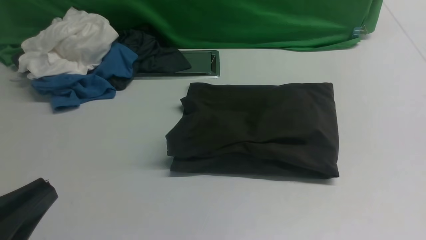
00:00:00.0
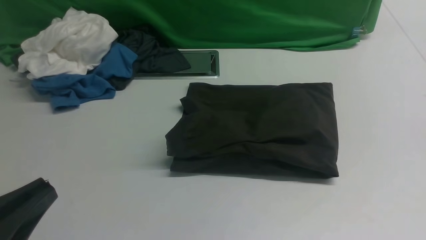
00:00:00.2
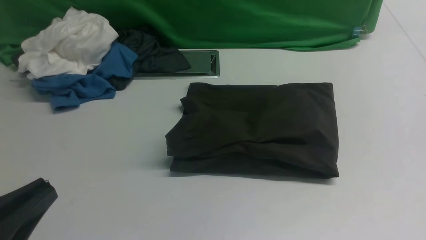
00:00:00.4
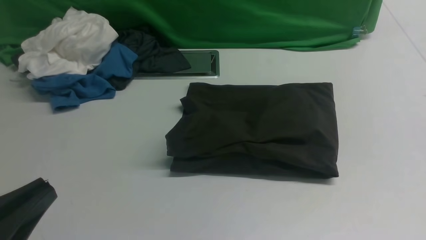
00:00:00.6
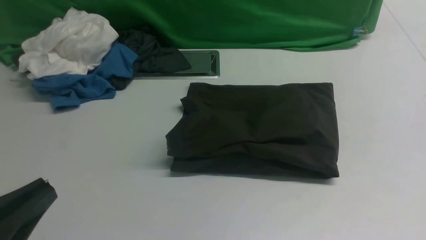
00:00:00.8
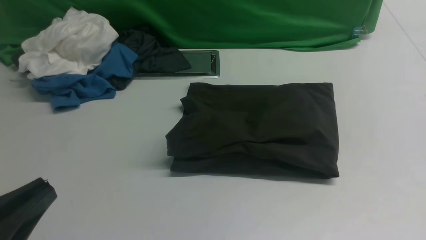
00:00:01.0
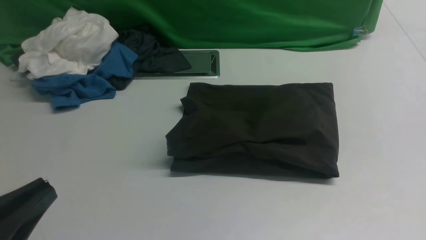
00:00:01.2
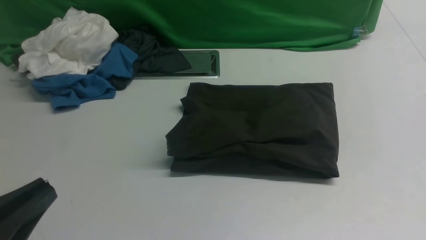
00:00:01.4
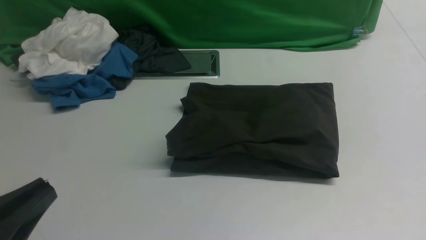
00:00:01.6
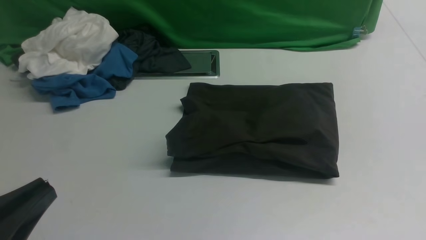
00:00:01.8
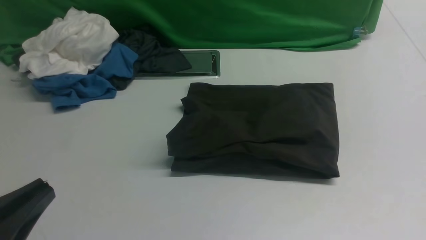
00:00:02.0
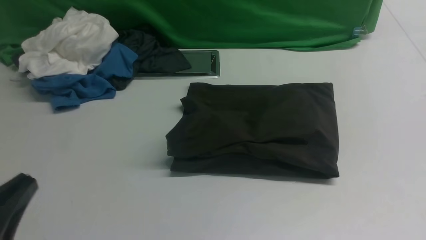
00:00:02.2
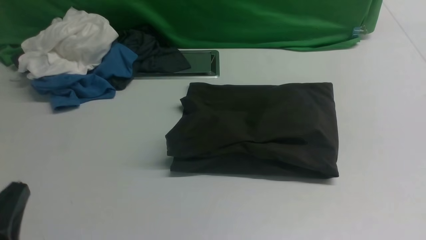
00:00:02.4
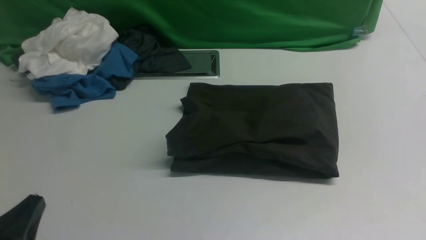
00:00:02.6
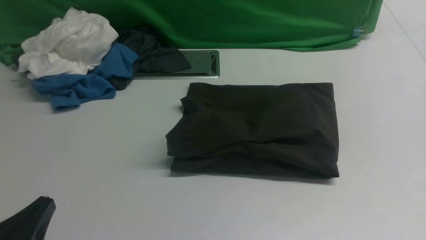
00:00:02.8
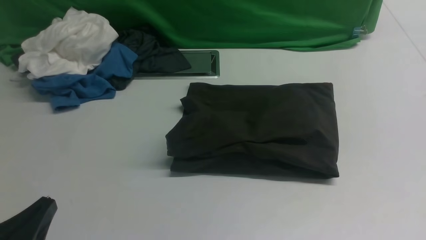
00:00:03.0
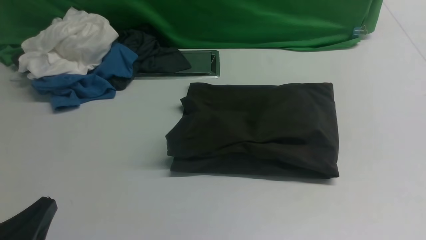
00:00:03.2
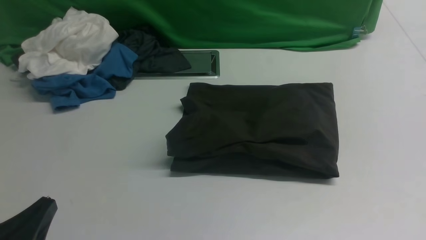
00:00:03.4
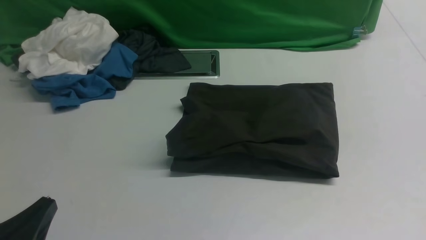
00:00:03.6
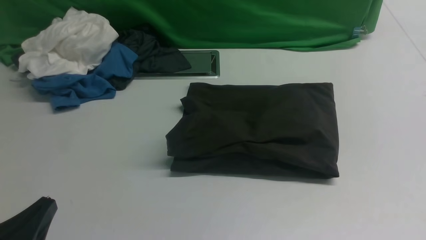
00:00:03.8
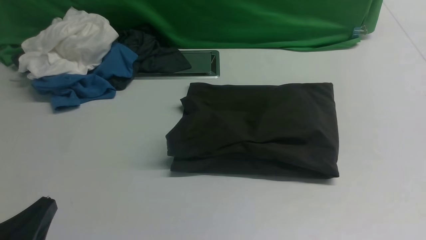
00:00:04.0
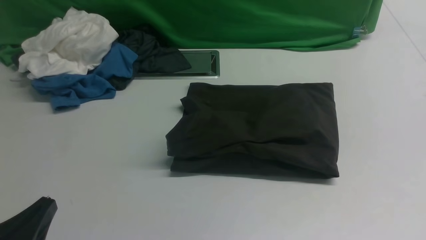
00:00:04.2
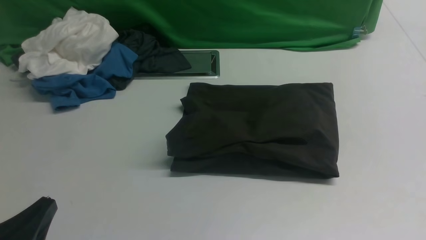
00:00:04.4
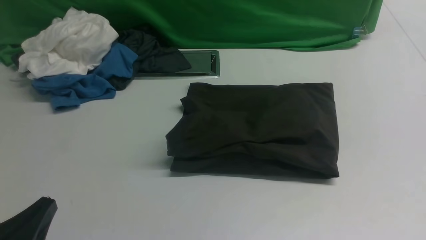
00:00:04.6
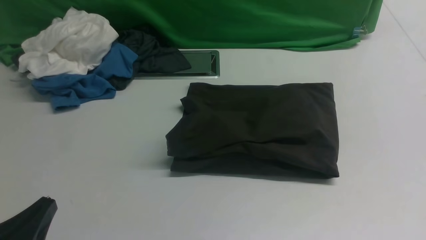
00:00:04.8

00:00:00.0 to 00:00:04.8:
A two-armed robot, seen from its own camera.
00:00:01.6 to 00:00:03.2: The left gripper is displaced downward by approximately 10 cm.
00:00:03.2 to 00:00:04.8: Neither gripper changes place.

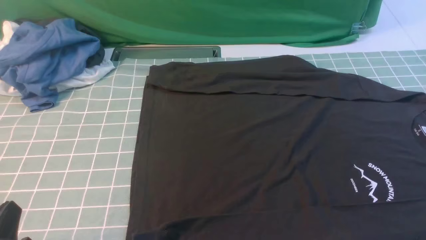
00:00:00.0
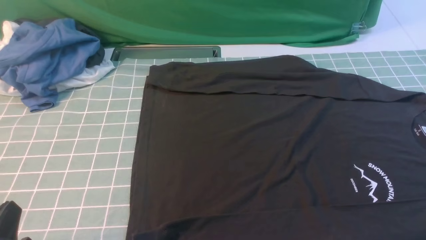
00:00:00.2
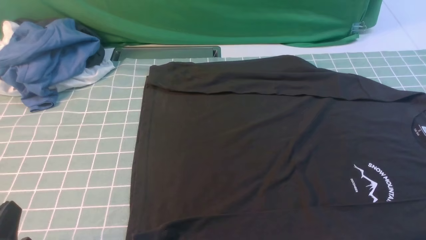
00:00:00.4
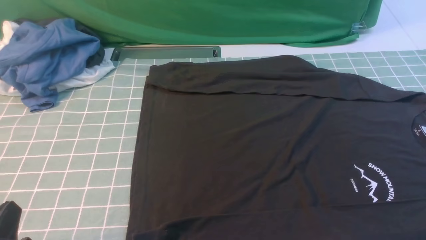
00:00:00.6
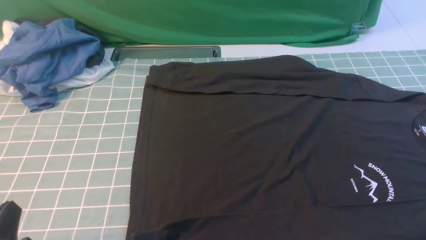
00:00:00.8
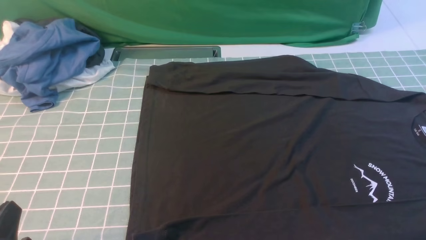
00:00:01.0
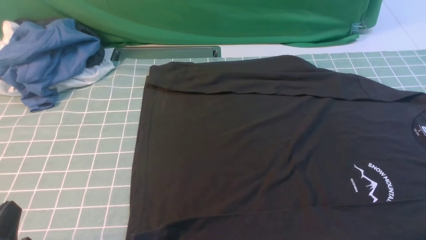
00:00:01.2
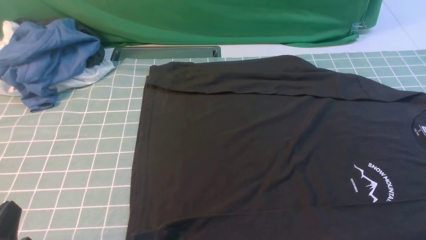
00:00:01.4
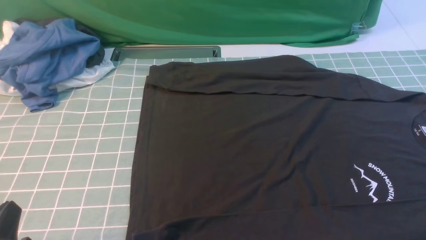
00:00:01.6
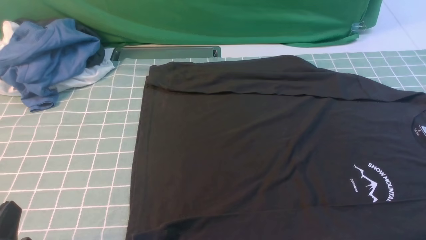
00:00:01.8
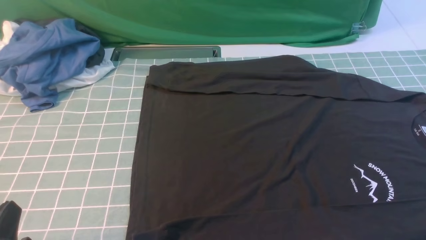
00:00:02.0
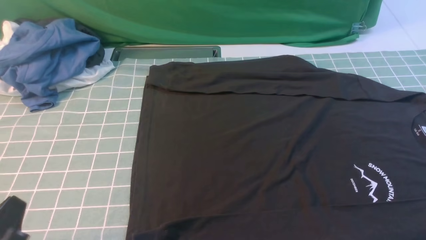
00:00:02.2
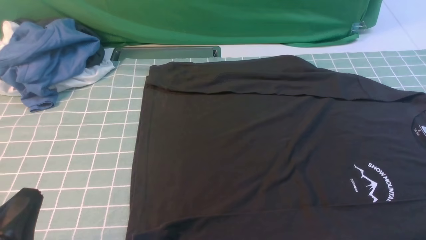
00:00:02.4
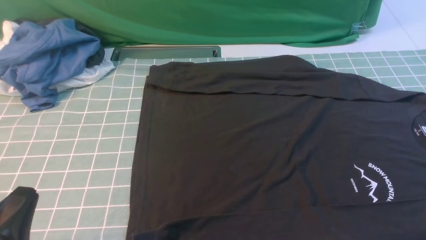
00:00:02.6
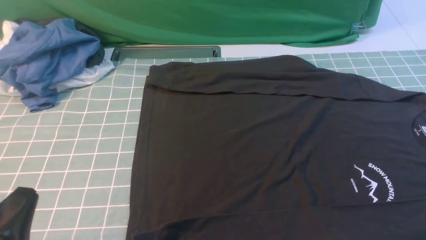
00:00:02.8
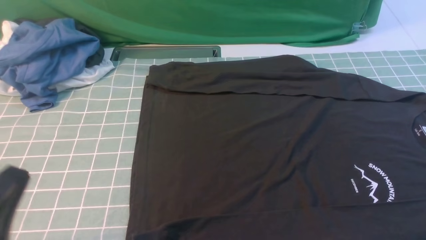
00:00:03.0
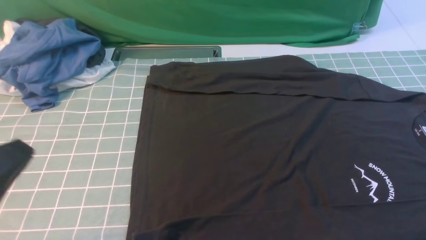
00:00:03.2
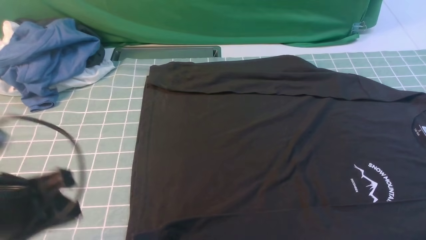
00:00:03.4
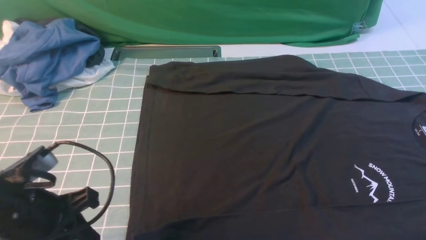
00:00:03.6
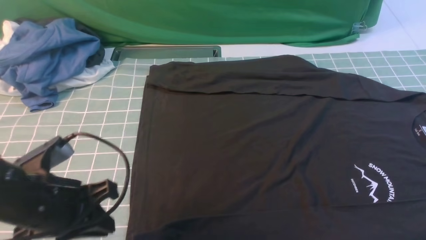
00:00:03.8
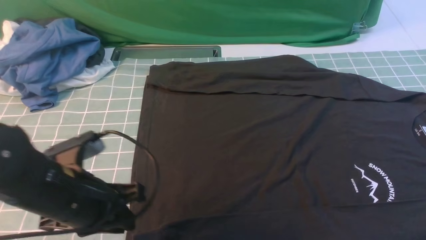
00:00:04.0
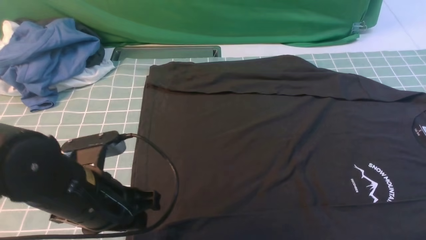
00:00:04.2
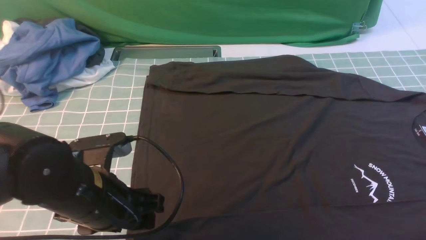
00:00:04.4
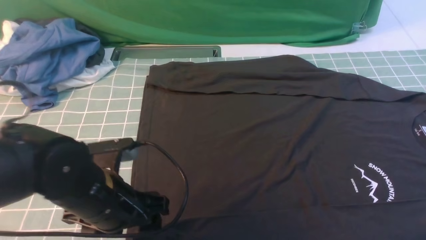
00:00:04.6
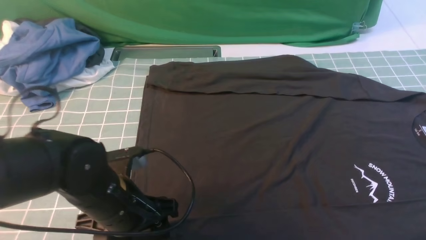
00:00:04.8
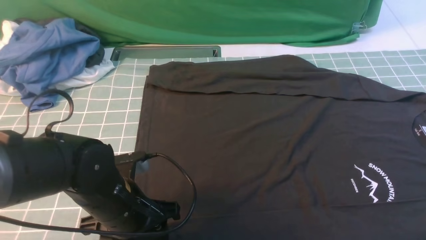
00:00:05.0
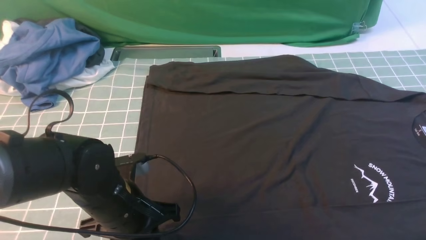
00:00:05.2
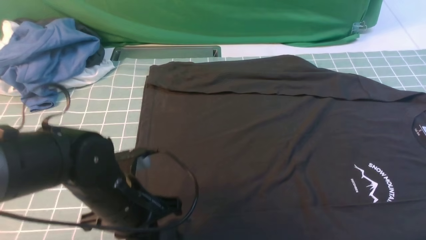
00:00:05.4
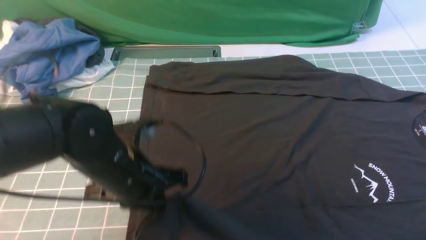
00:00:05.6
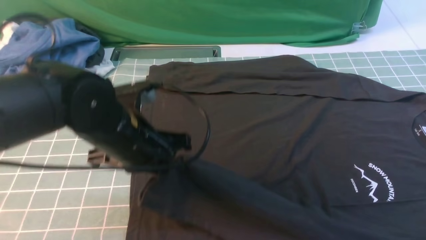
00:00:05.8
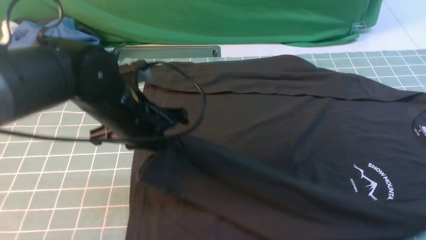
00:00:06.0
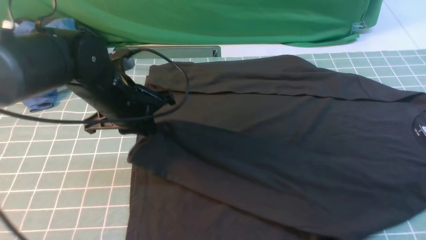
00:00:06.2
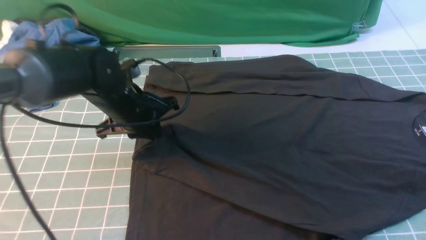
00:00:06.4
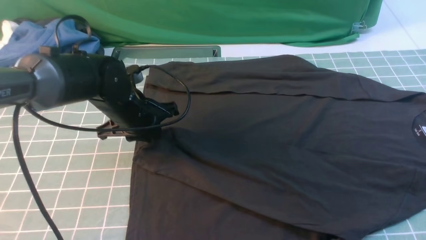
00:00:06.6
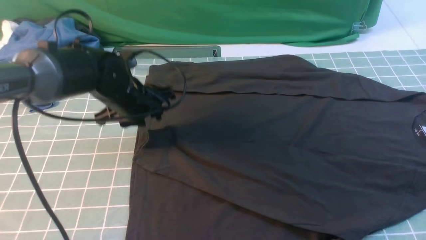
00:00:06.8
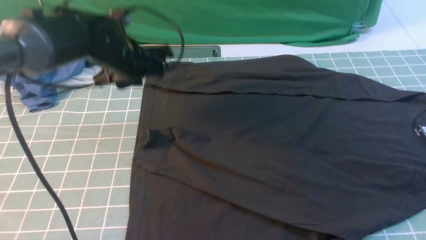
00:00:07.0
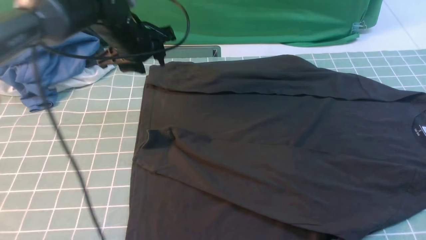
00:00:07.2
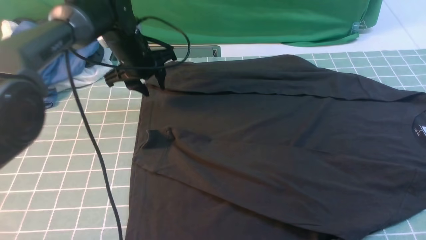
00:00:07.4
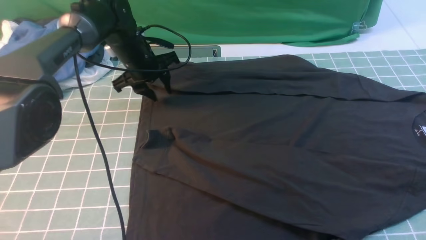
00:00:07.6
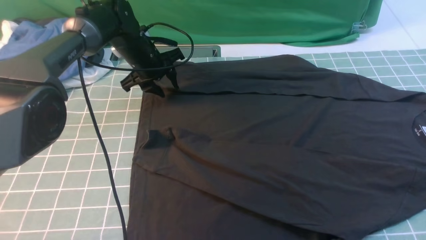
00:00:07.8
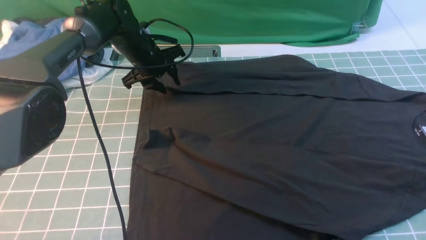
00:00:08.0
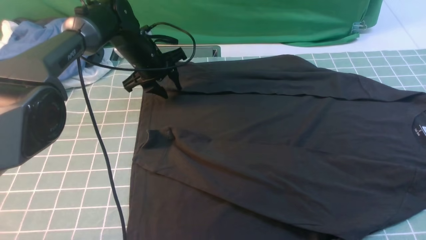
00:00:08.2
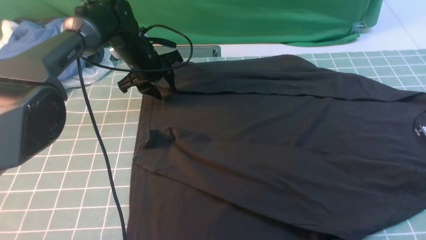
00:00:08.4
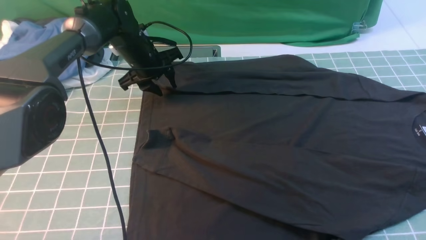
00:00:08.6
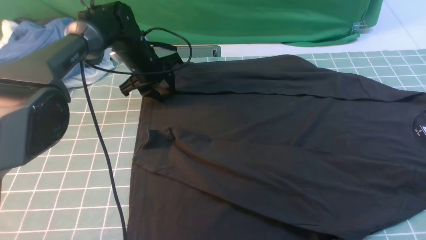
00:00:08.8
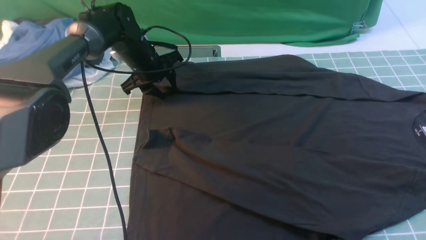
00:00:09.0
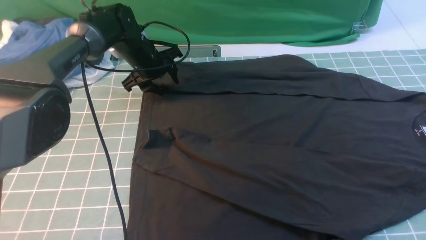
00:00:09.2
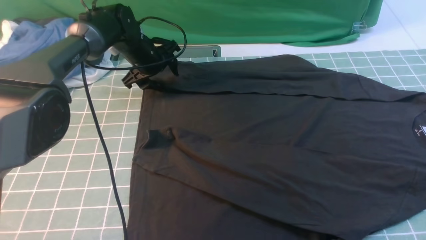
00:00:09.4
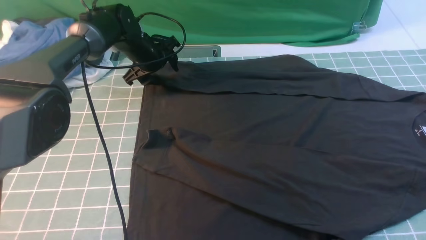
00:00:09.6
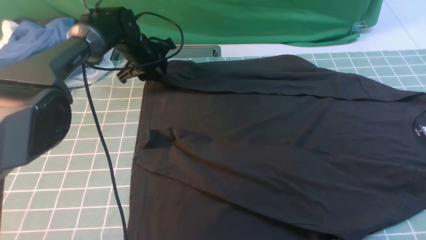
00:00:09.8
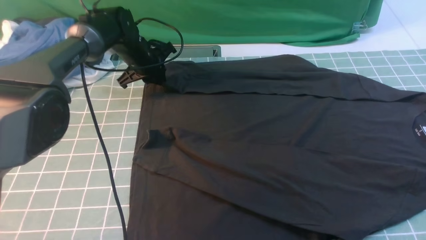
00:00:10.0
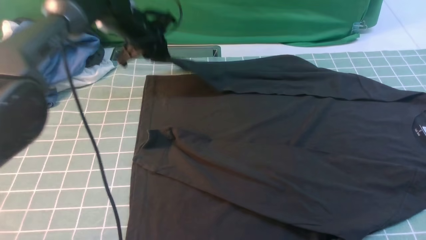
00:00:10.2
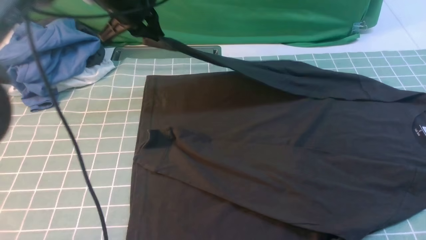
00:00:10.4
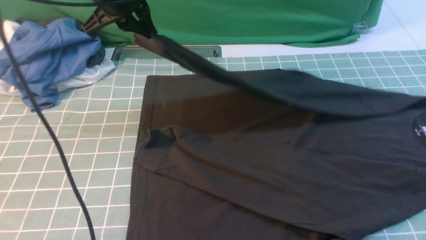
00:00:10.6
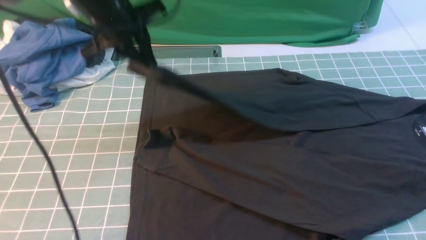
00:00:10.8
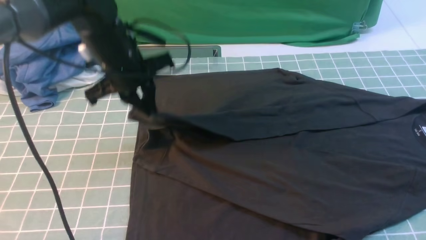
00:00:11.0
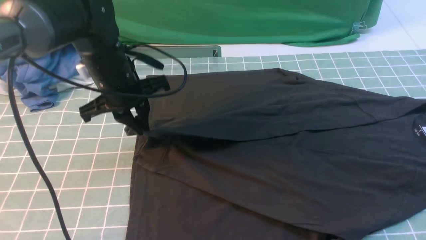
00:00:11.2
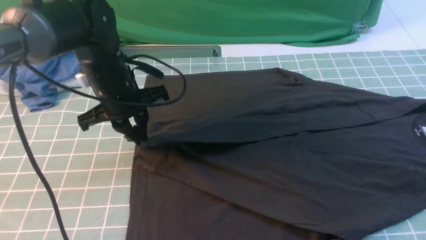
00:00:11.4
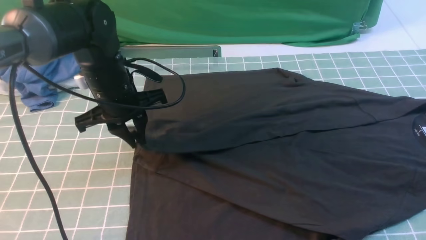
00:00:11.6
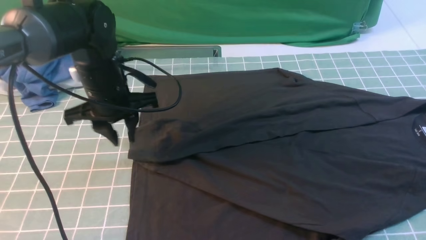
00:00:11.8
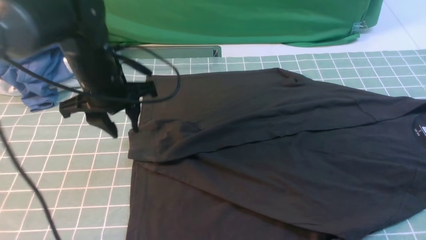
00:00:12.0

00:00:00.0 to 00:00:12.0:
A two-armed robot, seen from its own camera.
Step, 00:00:00.0 to 00:00:05.4: use the left arm to clamp the cuff closest to it.
Step, 00:00:05.6 to 00:00:06.6: use the left arm to drag and place the cuff at the centered position on the left edge of the fabric.
Step, 00:00:06.8 to 00:00:10.0: use the left arm to clamp the cuff farthest from it.
Step, 00:00:10.2 to 00:00:11.8: use the left arm to drag and drop the cuff onto the cuff closest to the left arm.
00:00:00.0 to 00:00:01.6: Both grippers stay about where they are.
00:00:01.6 to 00:00:03.0: The left gripper shifts approximately 5 cm upward.
00:00:03.0 to 00:00:04.4: The left gripper travels forward and to the right by approximately 15 cm, and opens up, while the right gripper shifts about 10 cm upward and forward.
00:00:04.4 to 00:00:06.0: The left gripper goes some 10 cm forward, and closes.
00:00:06.0 to 00:00:07.6: The left gripper heads forward, covering about 20 cm, and opens up.
00:00:07.6 to 00:00:09.0: The grippers move only a little.
00:00:09.0 to 00:00:10.4: The left gripper goes some 15 cm upward, and closes.
00:00:10.4 to 00:00:12.0: The left gripper goes about 10 cm backward, and opens.
